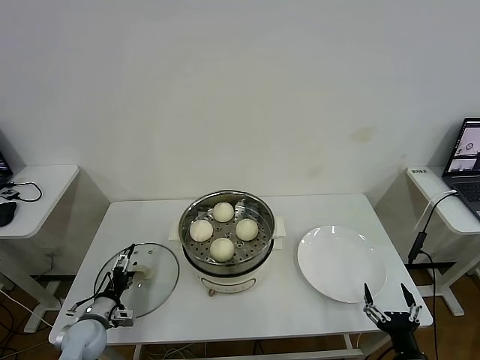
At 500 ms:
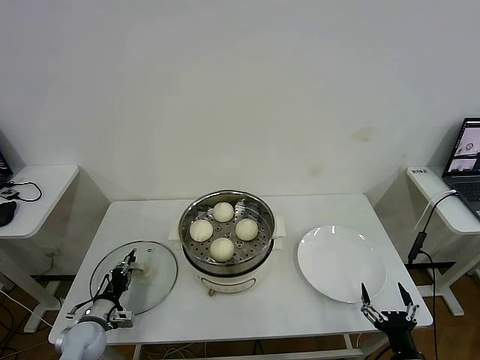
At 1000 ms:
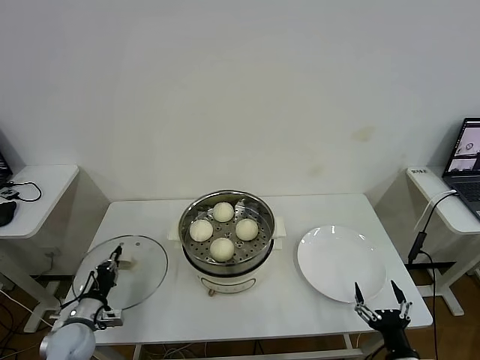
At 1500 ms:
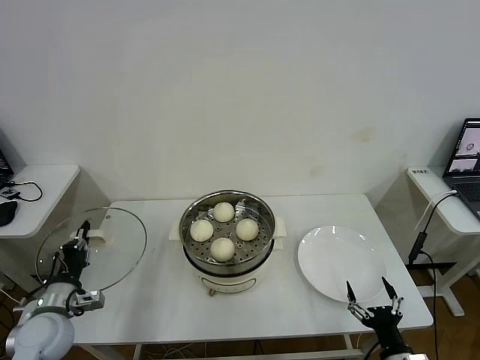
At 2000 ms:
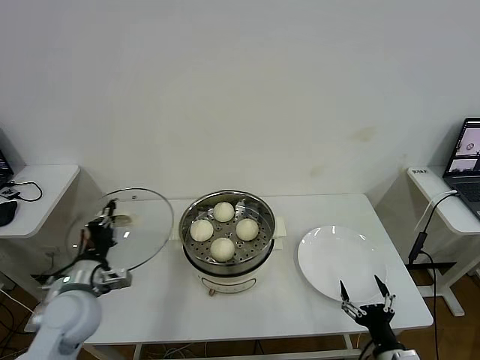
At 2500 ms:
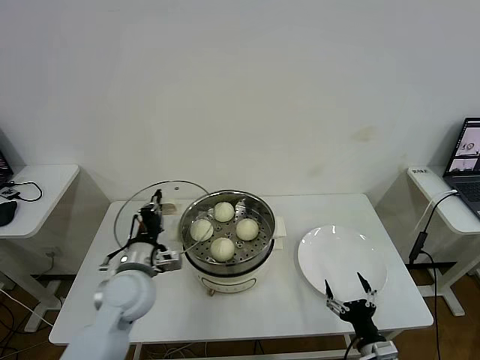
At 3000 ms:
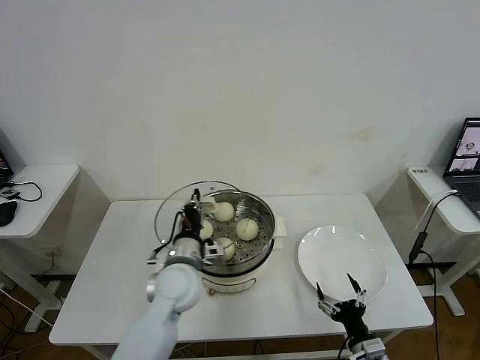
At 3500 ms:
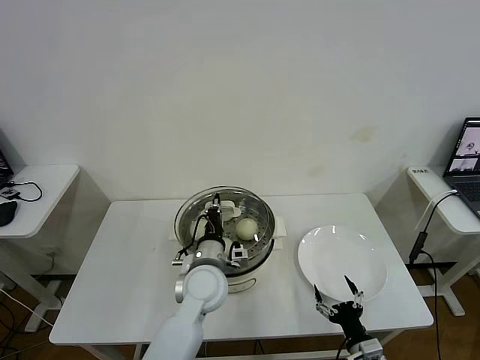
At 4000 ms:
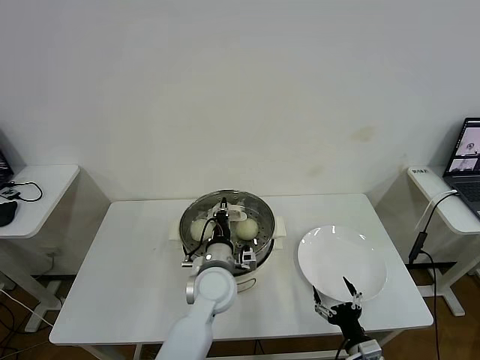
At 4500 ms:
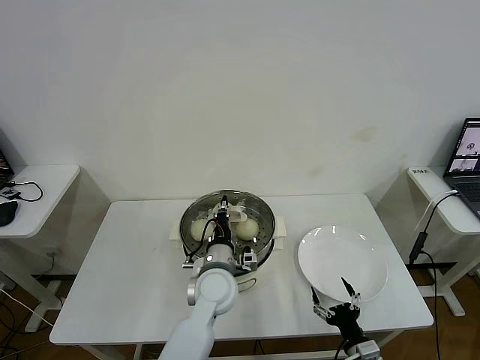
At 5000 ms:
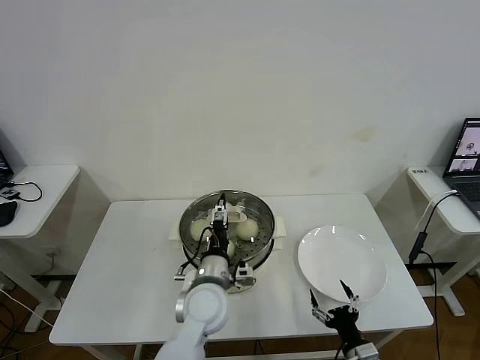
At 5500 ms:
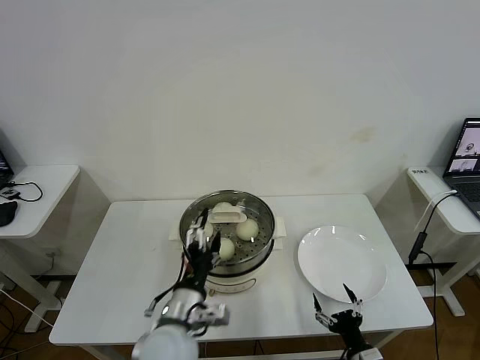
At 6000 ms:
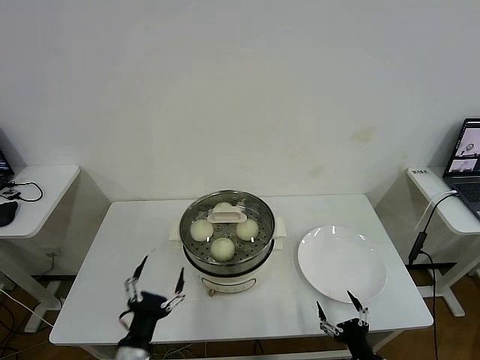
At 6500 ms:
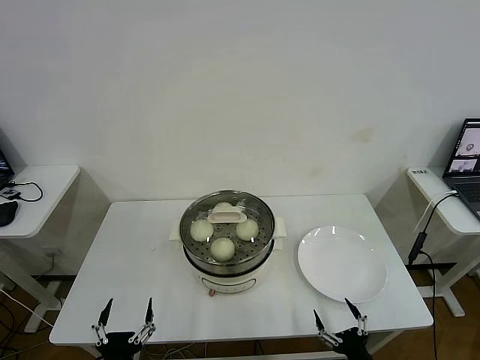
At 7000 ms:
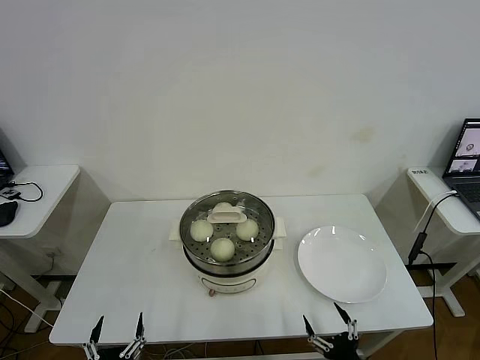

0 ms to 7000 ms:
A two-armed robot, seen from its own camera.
Task of the whole recording: take steamed baozi put them in steamer then cover it.
Step, 1000 ms to 5000 ms: Place the pot lid on the steamer with left gripper.
0 ms to 2000 ms: The left gripper heads upward, covering some 20 cm, and closes.
2000 ms to 3500 ms: The right gripper changes place by some 5 cm. The left gripper is displaced to the right by about 25 cm.
3500 ms to 5000 ms: The left gripper opens.
5000 ms to 7000 ms: The left gripper shifts about 35 cm backward and to the left, while the right gripper shifts approximately 5 cm backward.
